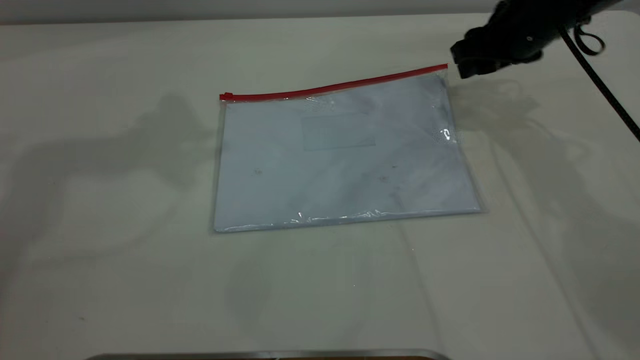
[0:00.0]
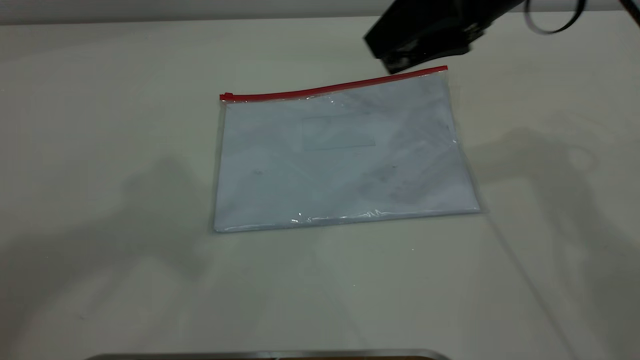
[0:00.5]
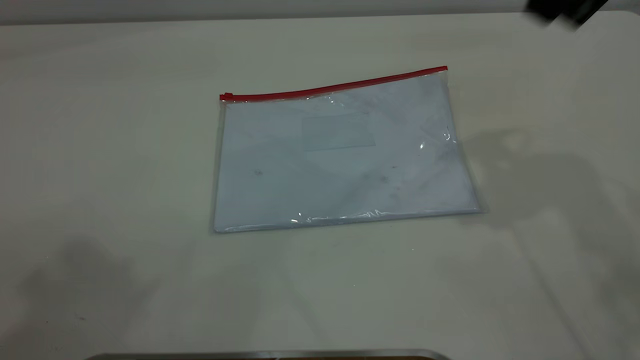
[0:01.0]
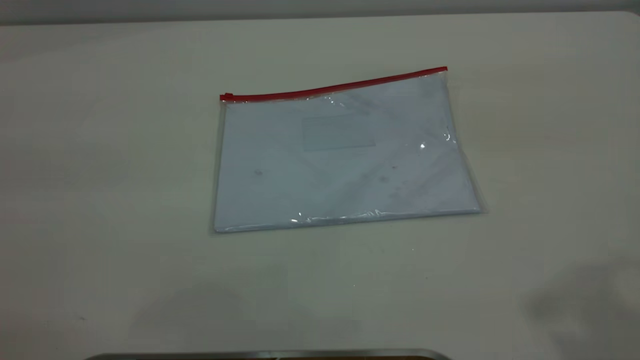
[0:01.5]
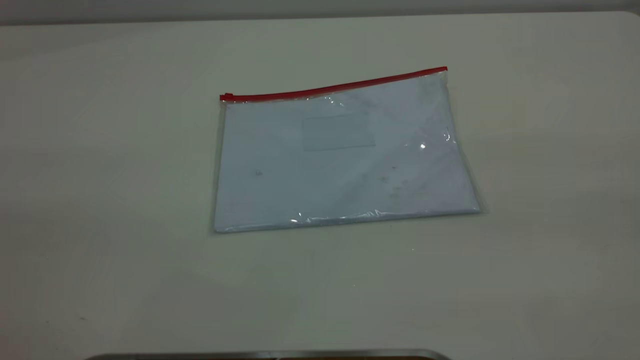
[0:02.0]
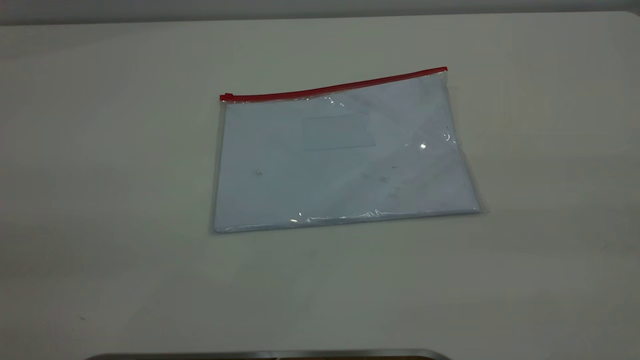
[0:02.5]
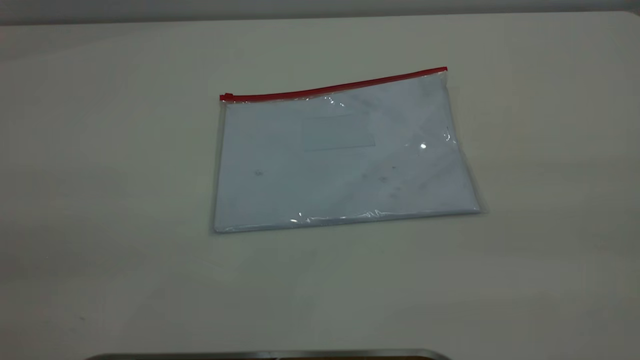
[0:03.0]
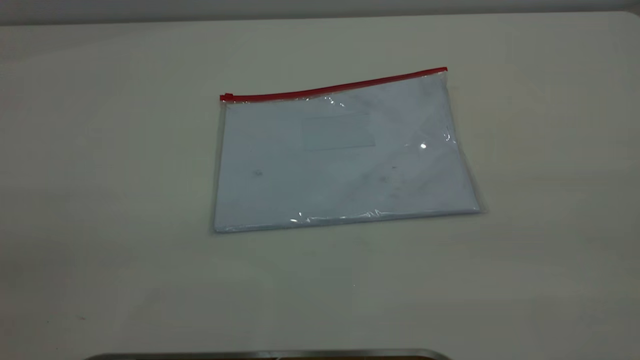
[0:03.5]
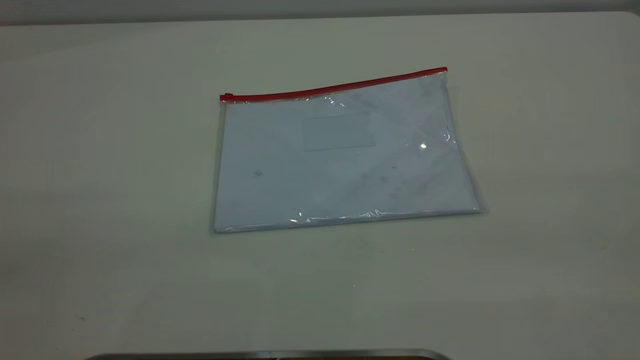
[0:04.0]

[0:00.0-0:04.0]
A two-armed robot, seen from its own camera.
0:00.0 to 0:02.0: The right gripper shifts roughly 50 cm backward and upward.
